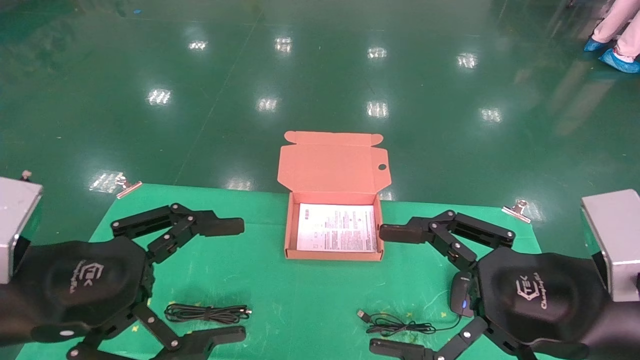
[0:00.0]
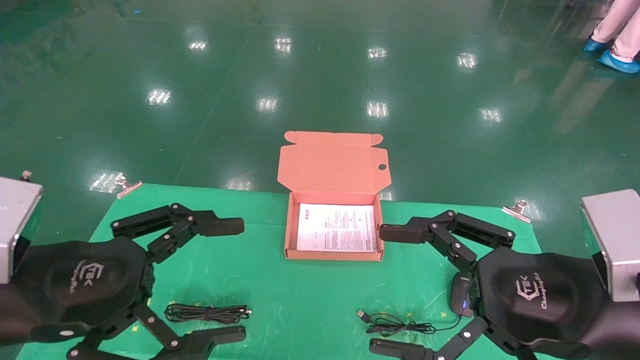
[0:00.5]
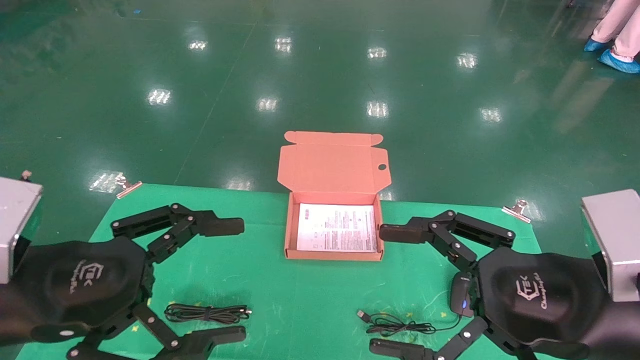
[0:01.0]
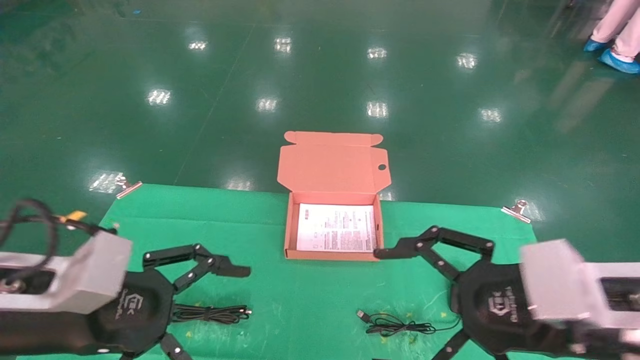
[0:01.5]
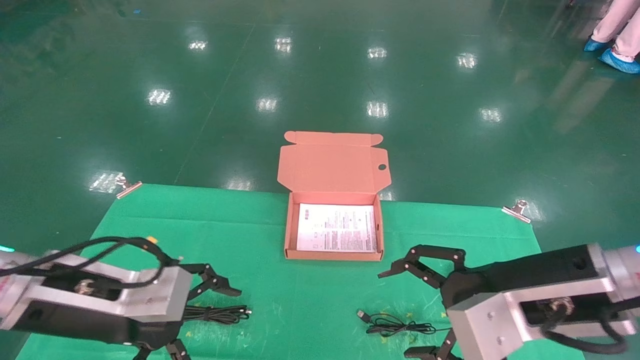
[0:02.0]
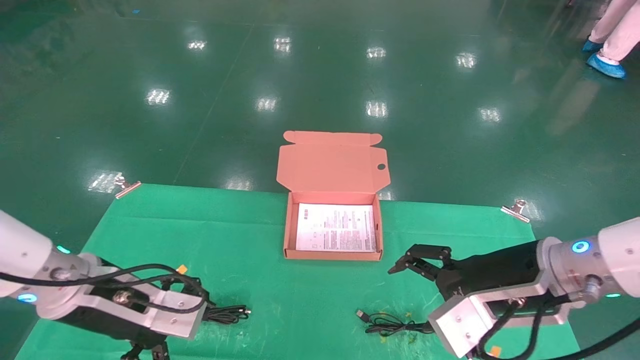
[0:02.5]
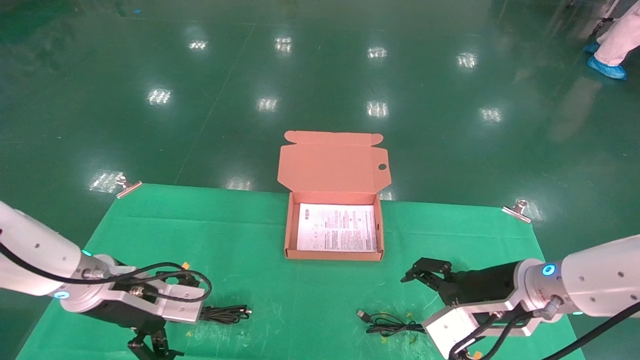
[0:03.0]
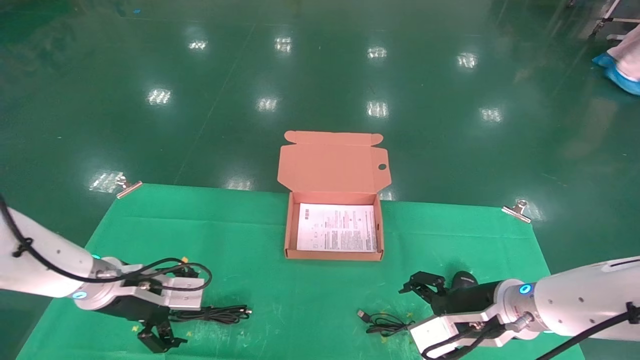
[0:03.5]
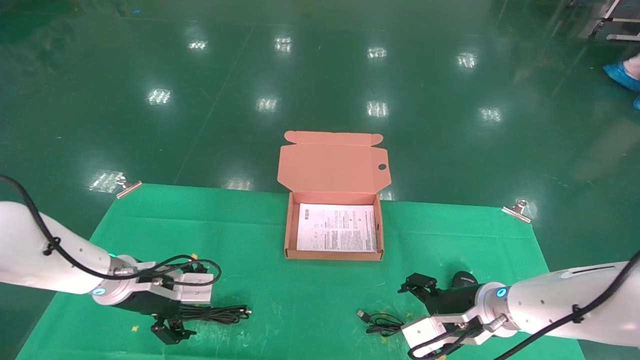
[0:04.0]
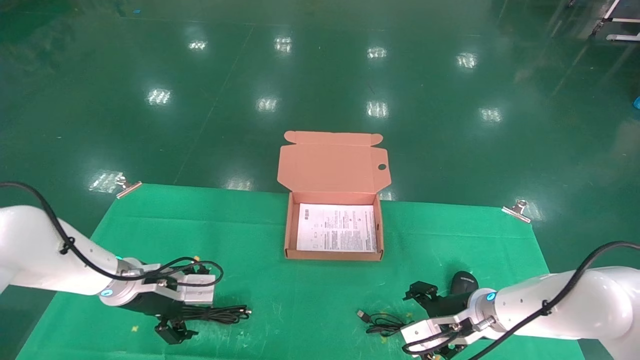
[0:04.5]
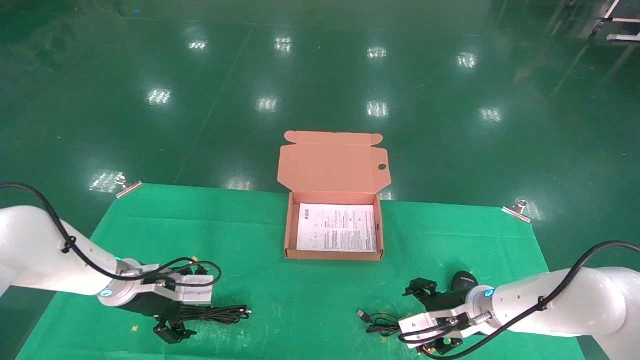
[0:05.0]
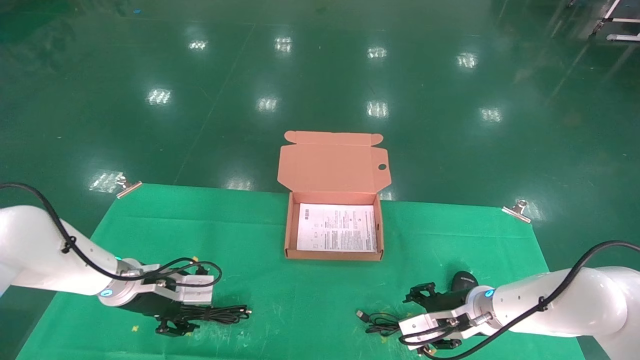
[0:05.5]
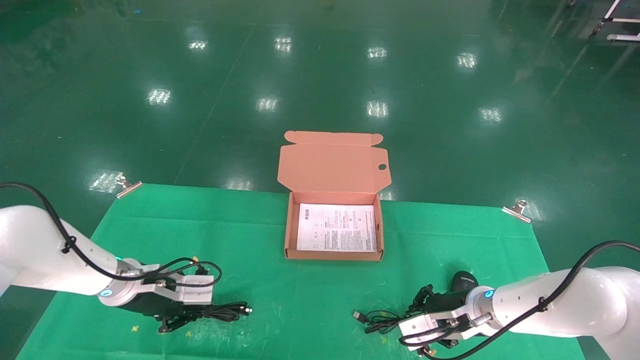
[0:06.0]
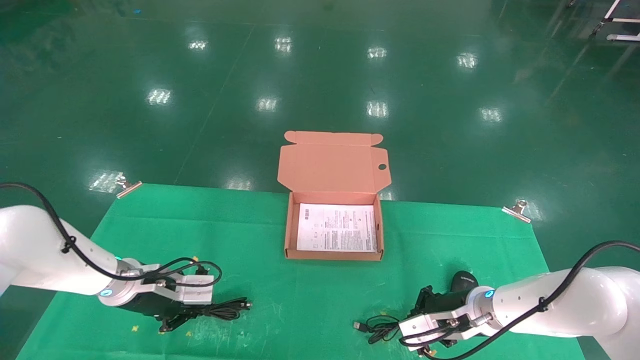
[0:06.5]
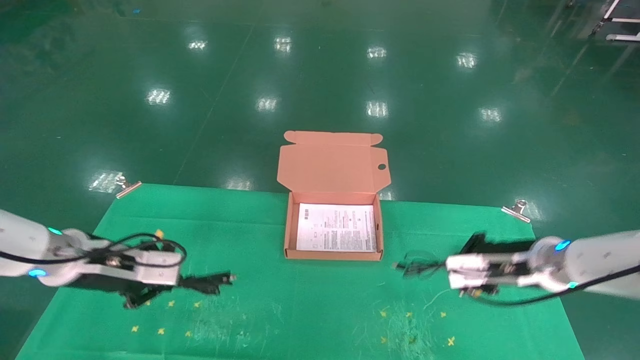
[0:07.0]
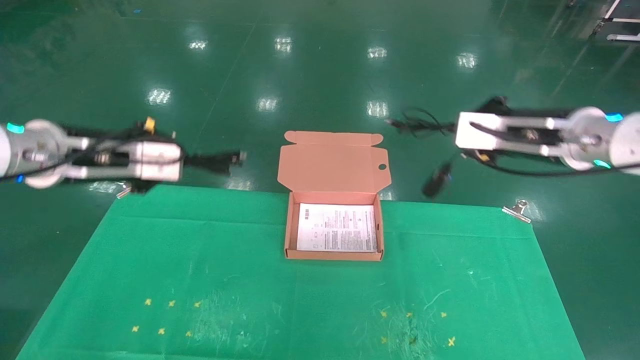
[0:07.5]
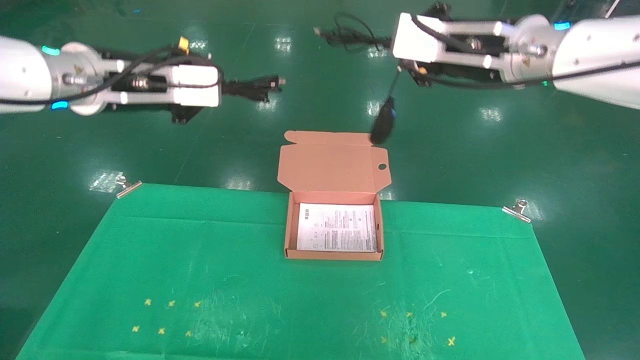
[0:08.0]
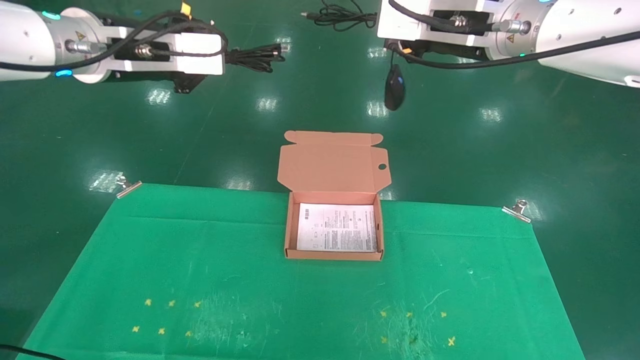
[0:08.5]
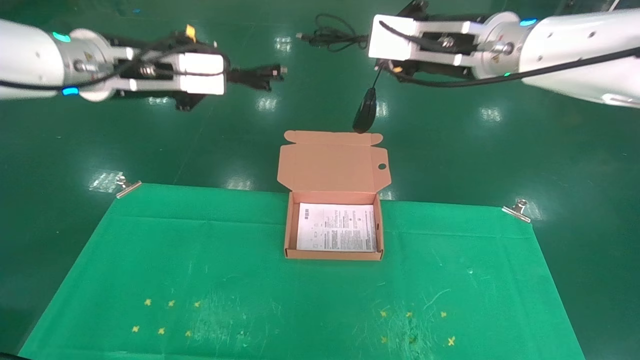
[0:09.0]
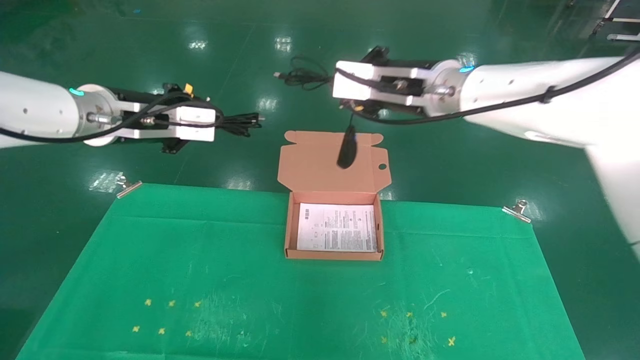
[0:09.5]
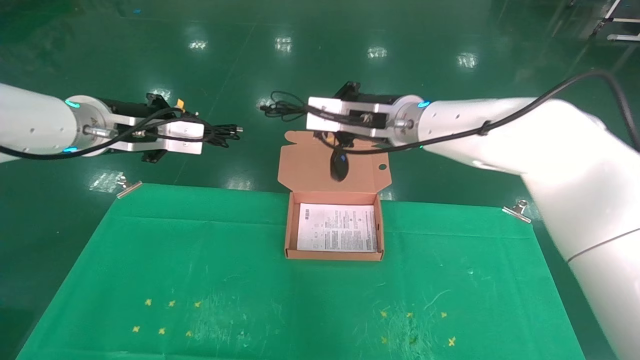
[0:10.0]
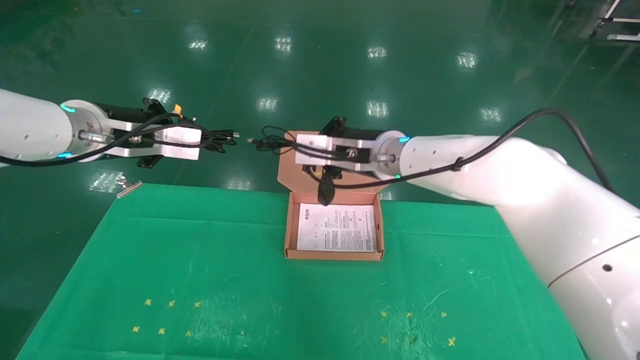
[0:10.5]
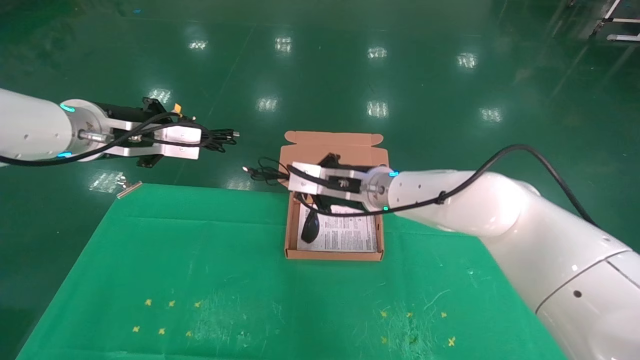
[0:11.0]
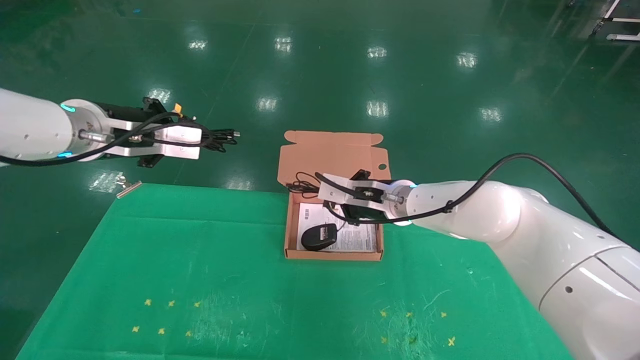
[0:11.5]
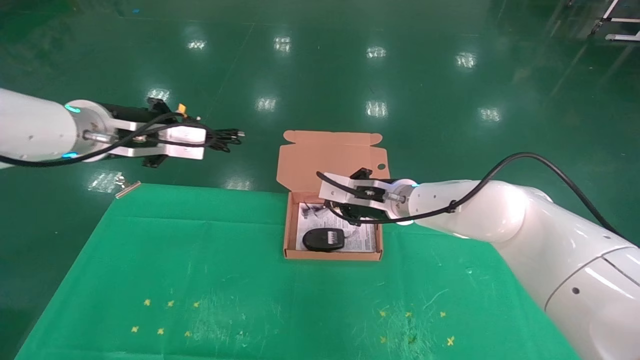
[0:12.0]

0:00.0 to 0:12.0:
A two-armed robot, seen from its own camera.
Task of the whole recording: grasp data cable left put into box grasp mouse right put into box.
Step, 0:01.0 to 0:07.0: Grab and pick up both the mouse and power cord from the accessory packaging area at the same time.
0:00.0 to 0:02.0: Both grippers move forward, some 5 cm.
0:02.0 to 0:04.0: The left gripper moves forward and downward, about 15 cm. Meanwhile the right gripper heads downward and forward, covering approximately 20 cm.
0:04.0 to 0:06.0: The left gripper closes, while the right gripper closes up.
0:06.0 to 0:08.0: The two grippers go roughly 35 cm upward.
0:08.0 to 0:10.0: The left gripper shifts about 5 cm downward. Meanwhile the right gripper shifts some 15 cm to the left, downward and forward.
0:10.0 to 0:12.0: The right gripper travels downward by approximately 10 cm.

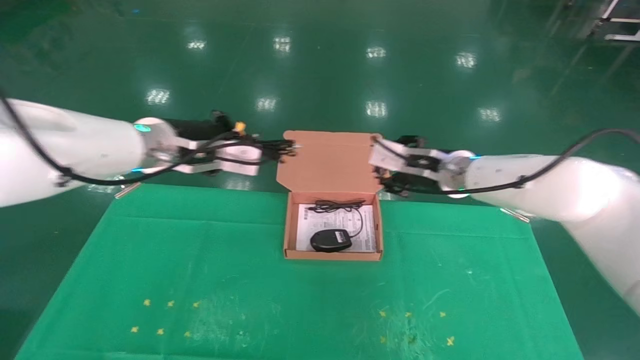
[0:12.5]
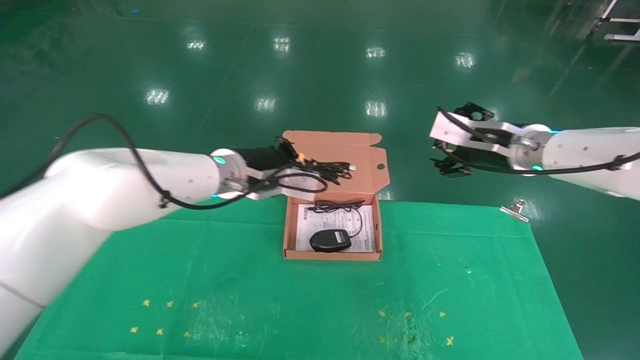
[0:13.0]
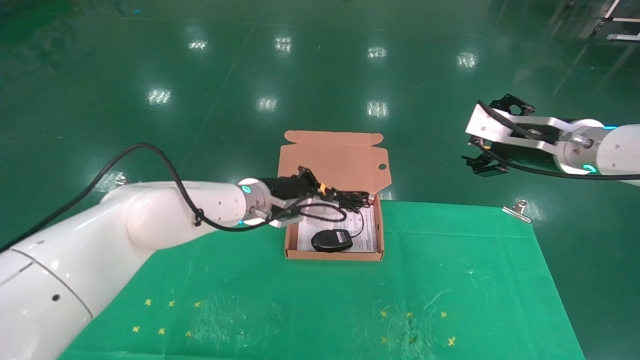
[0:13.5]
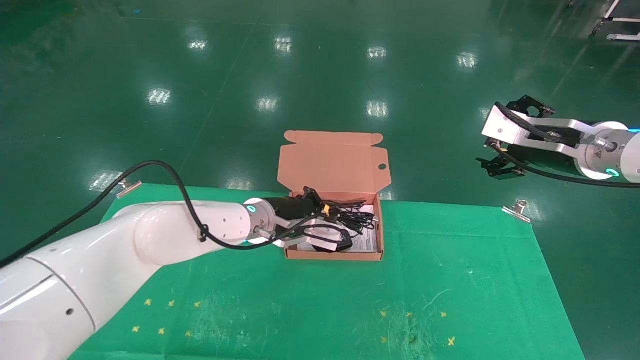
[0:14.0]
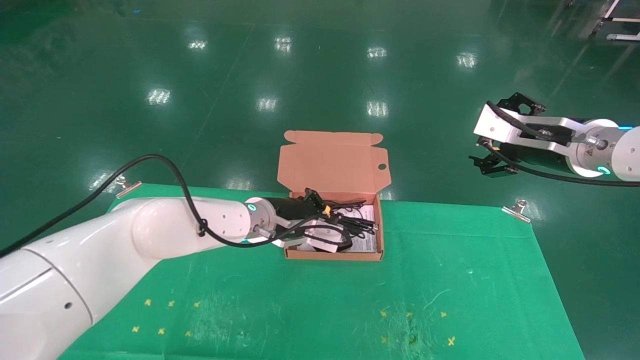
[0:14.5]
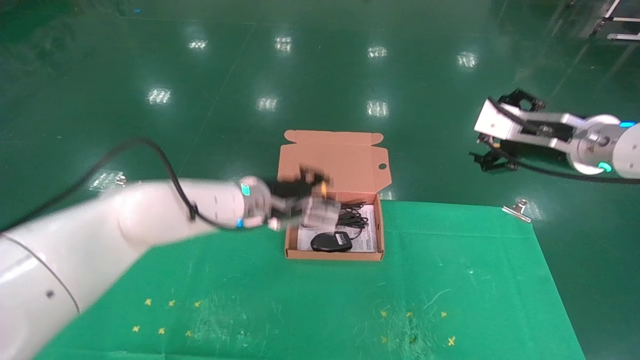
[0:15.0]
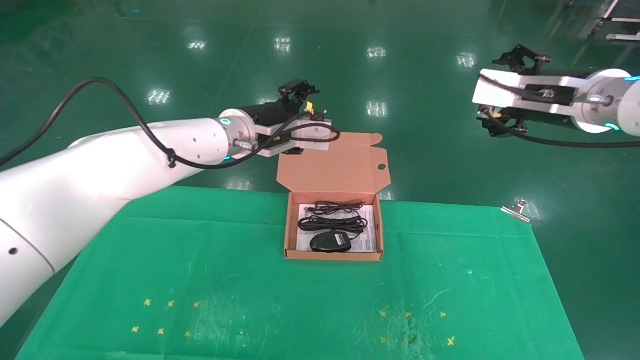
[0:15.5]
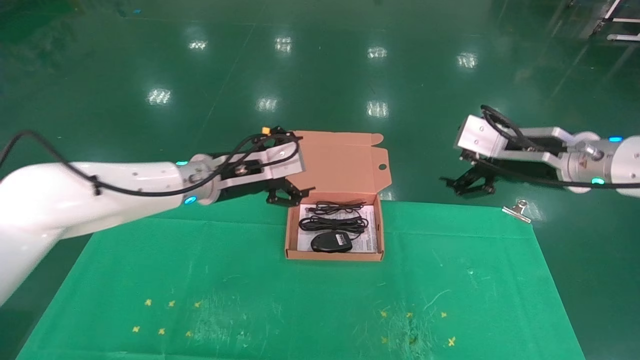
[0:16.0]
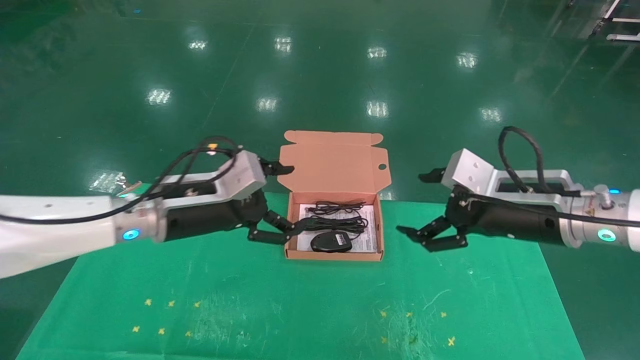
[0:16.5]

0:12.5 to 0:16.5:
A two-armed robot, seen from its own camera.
Task of the whole recording: grasp data cable left put into box grasp mouse right put into box.
Step, 0:12.5 to 0:15.0: Place the mouse and power cord into the box.
0:12.5 to 0:14.5: The right gripper goes approximately 15 cm to the right and backward, and opens up; the left gripper shifts some 15 cm downward and to the right.
0:14.5 to 0:16.5: The right gripper goes roughly 10 cm backward, downward and to the left; the left gripper shifts roughly 15 cm to the left, backward and upward, and opens its fingers.

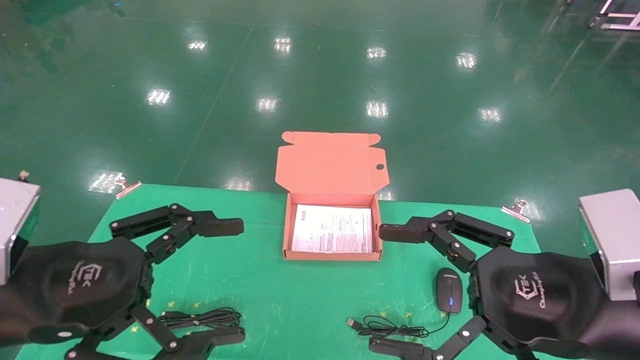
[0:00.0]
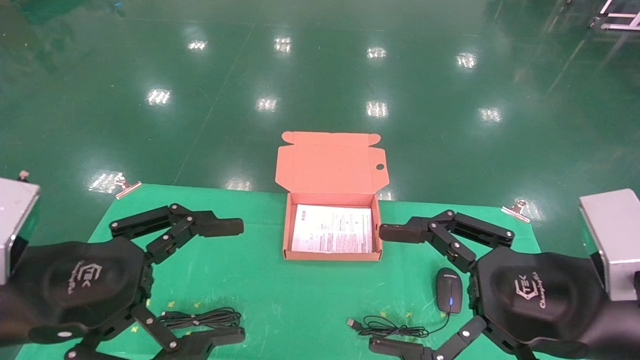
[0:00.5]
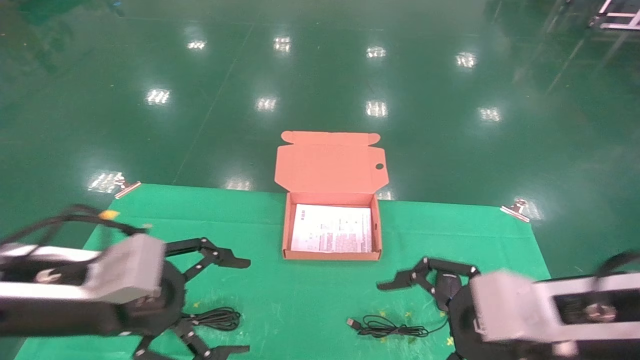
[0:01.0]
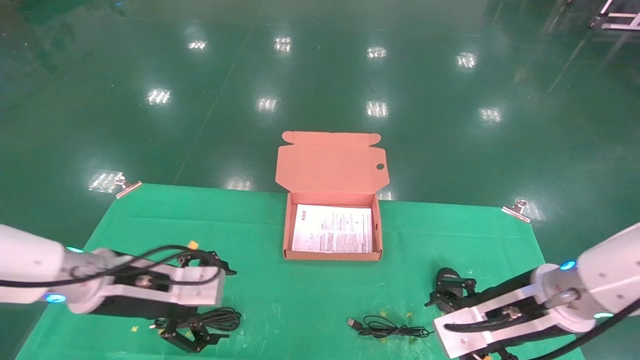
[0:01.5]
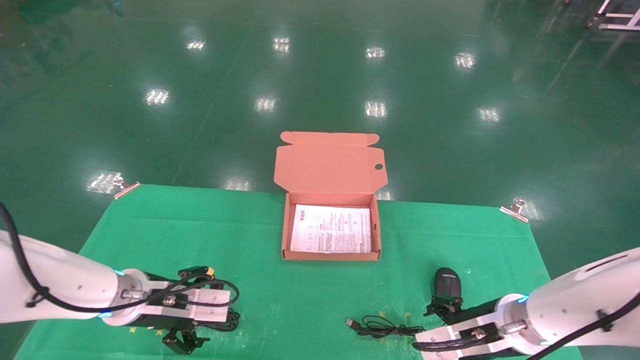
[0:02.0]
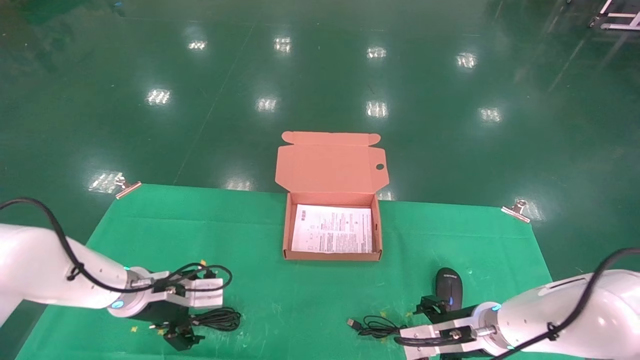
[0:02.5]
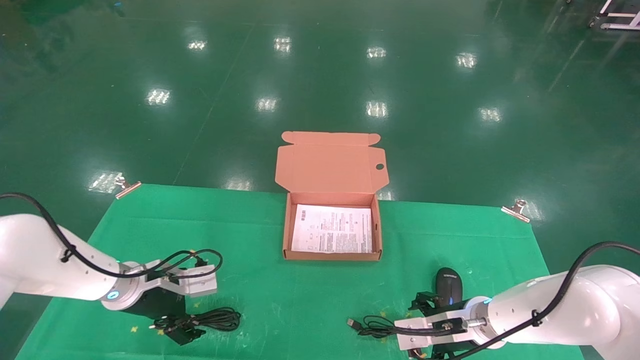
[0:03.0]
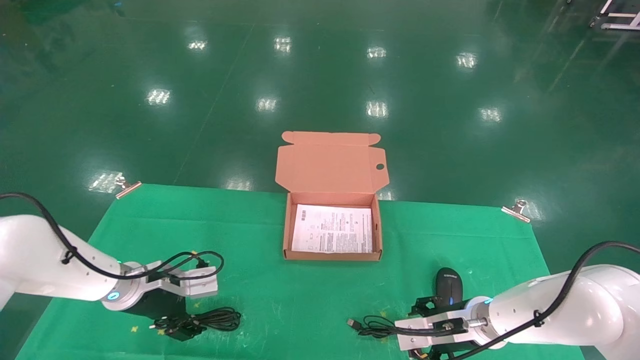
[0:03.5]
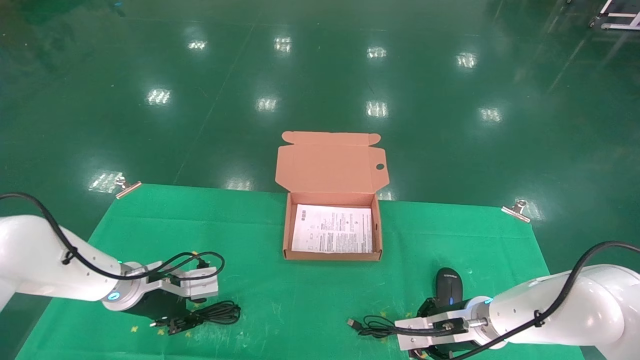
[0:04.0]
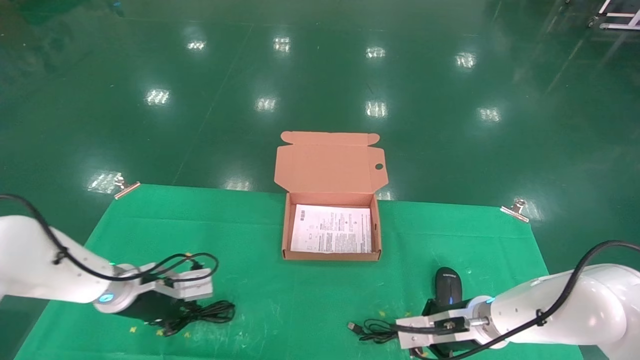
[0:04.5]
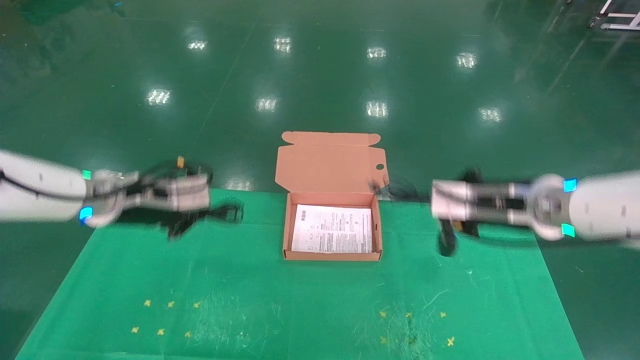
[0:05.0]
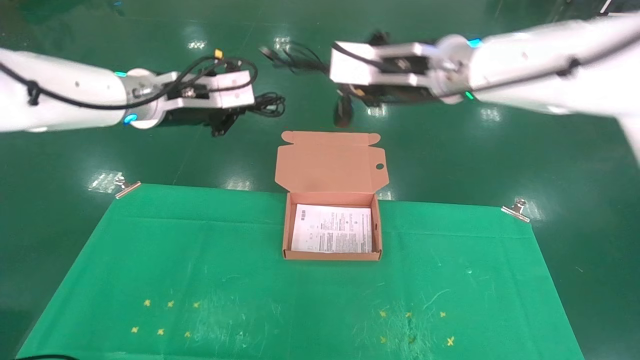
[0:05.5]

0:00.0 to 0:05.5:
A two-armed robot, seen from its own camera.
Task of the whole recording: grasp data cable left put into box grasp mouse right put into box.
Step, 0:00.5 to 0:05.0: Grab and pick up both the mouse and power cord from the accessory packaging area at the same time.
0:00.0 to 0:02.0: Both grippers travel together forward and downward, approximately 20 cm.
0:02.0 to 0:03.5: The two grippers go approximately 5 cm forward.
0:03.5 to 0:05.5: Both grippers travel together upward, some 30 cm. The left gripper closes its fingers. Meanwhile the right gripper closes up.
